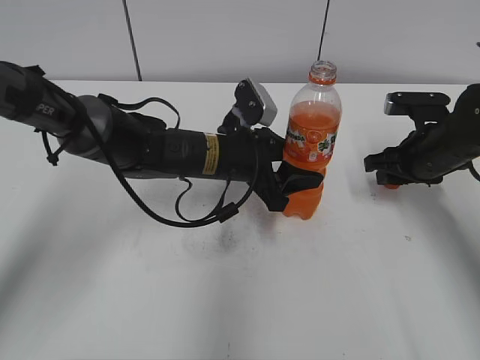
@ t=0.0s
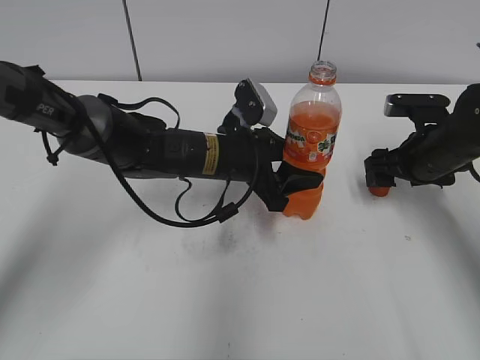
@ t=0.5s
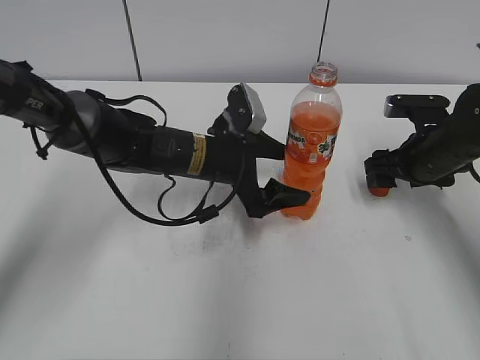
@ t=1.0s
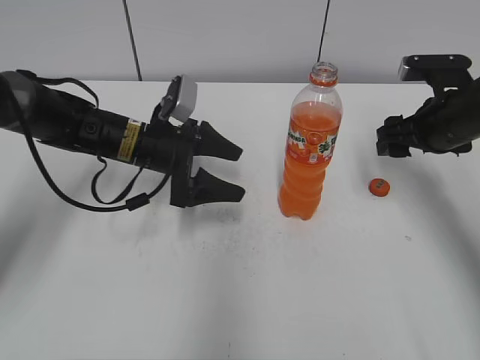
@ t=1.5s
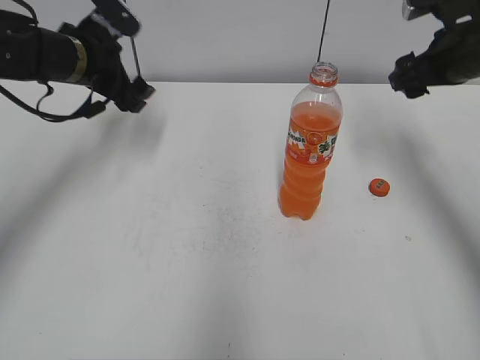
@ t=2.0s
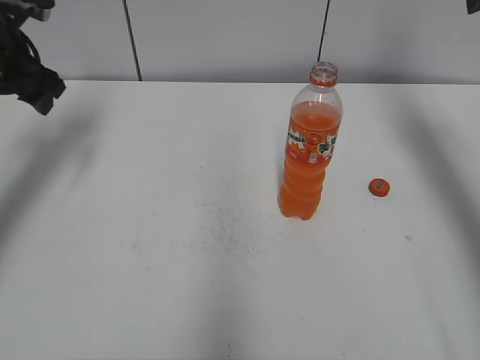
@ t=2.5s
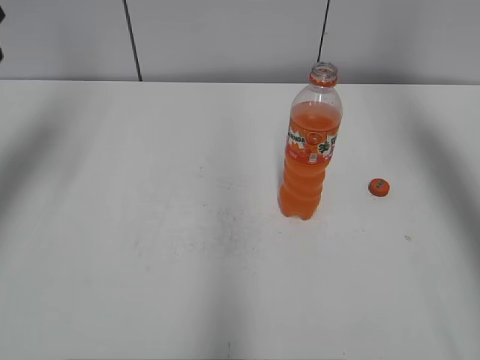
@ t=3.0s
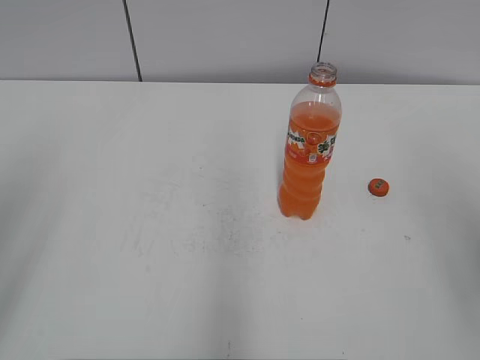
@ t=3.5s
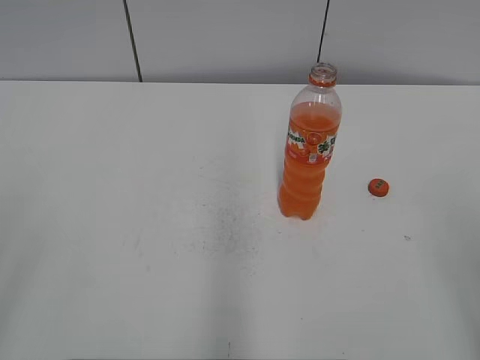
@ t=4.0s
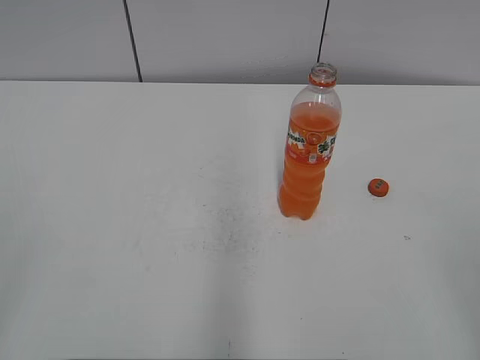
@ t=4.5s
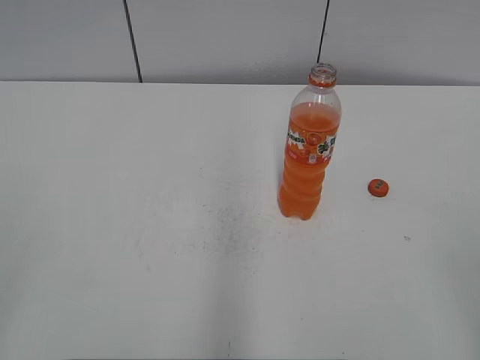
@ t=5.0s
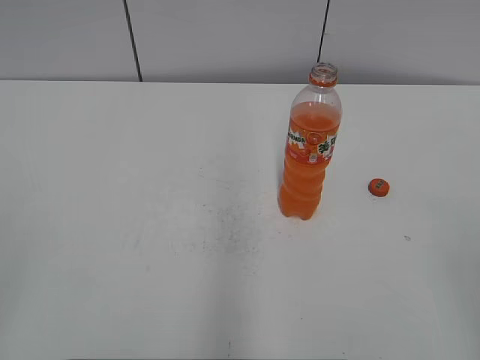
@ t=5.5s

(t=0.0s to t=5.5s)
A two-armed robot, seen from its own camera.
t=0.0s - t=2.0s: The right gripper travels upward by roughly 15 cm, and opens, while the left gripper travels to the left, upward and forward by roughly 20 cm, and opens.
t=2.0s - t=3.5s: The two grippers go some 30 cm backward.

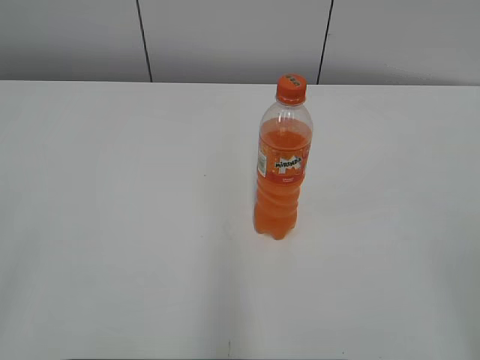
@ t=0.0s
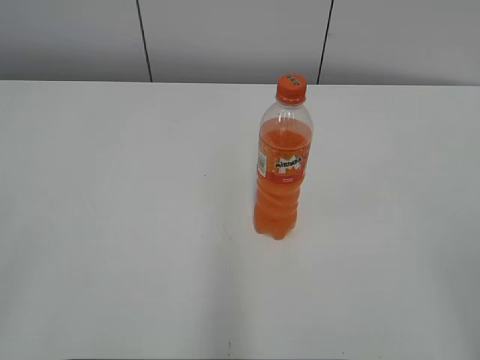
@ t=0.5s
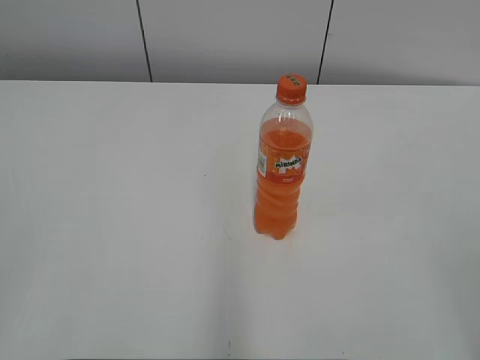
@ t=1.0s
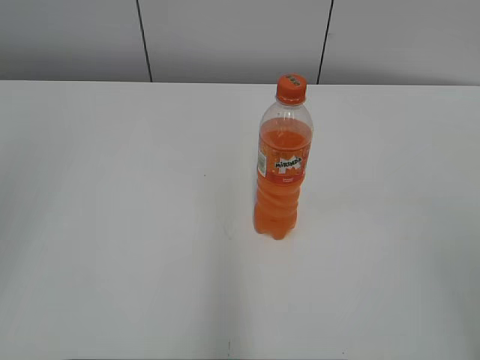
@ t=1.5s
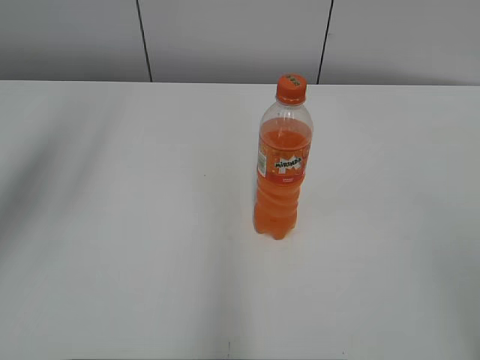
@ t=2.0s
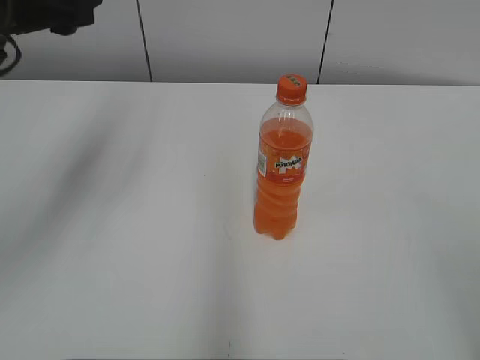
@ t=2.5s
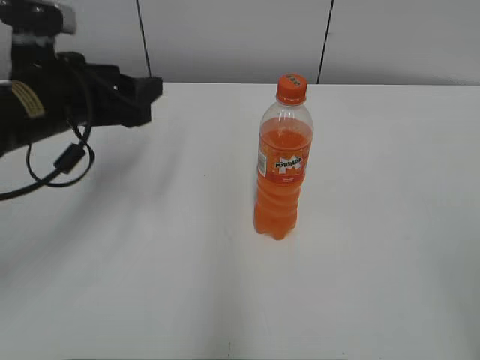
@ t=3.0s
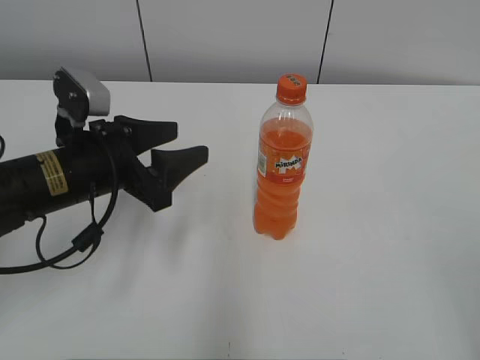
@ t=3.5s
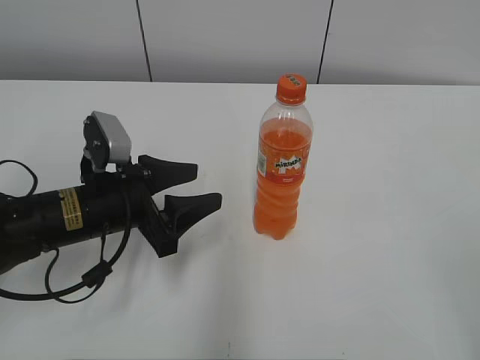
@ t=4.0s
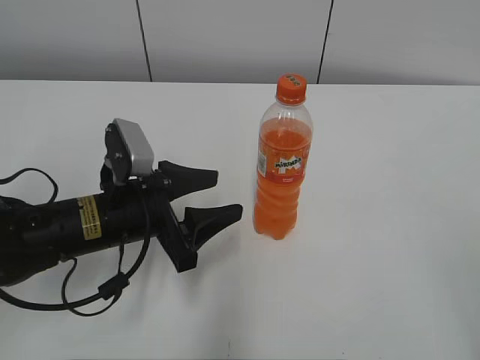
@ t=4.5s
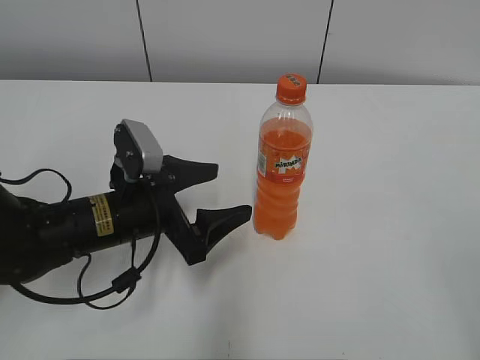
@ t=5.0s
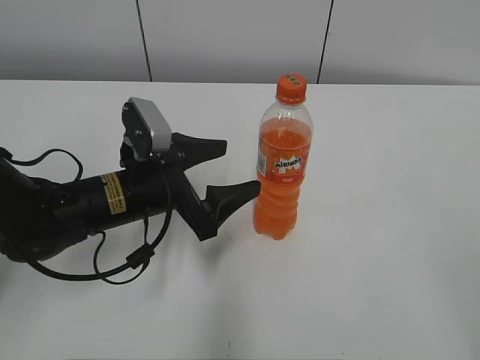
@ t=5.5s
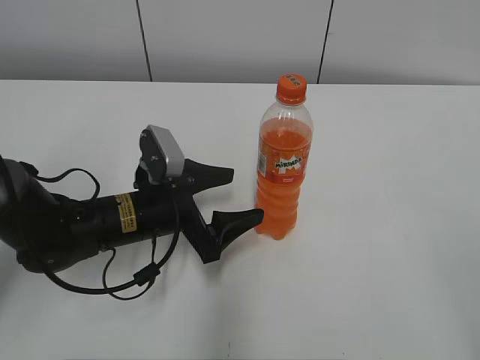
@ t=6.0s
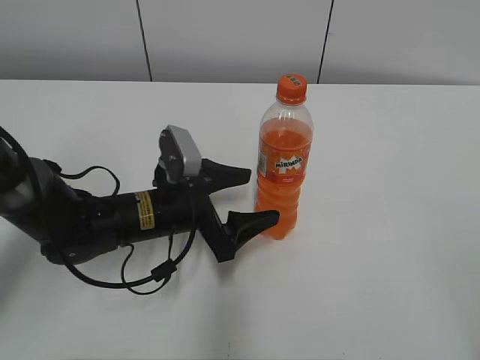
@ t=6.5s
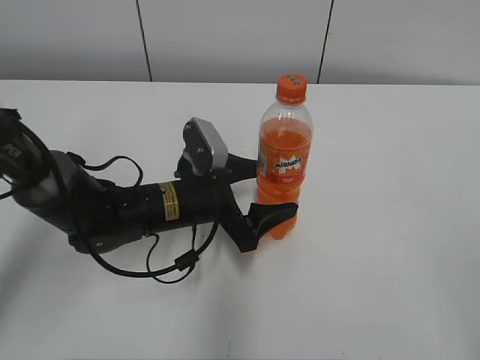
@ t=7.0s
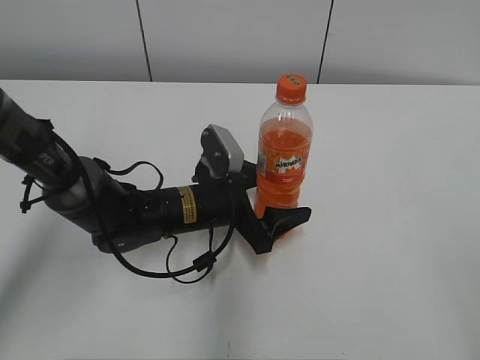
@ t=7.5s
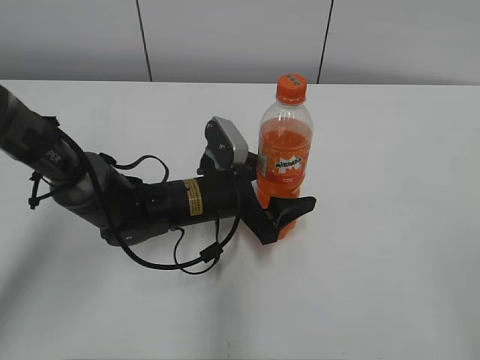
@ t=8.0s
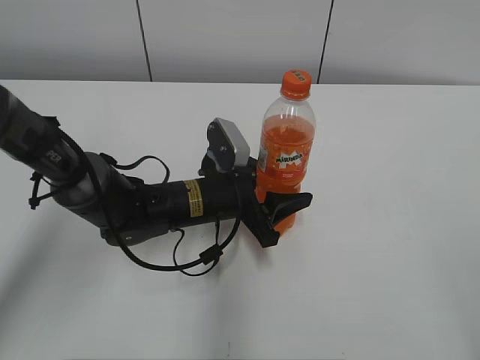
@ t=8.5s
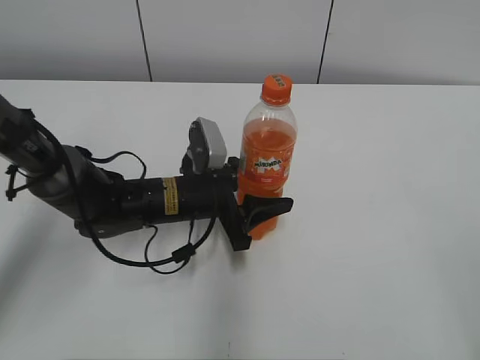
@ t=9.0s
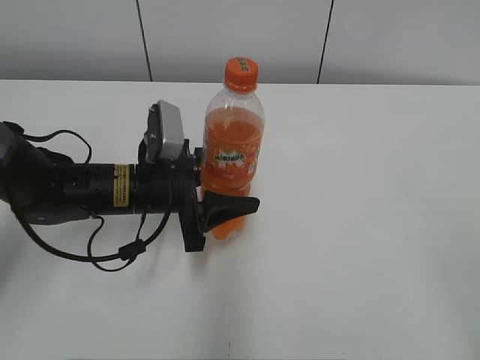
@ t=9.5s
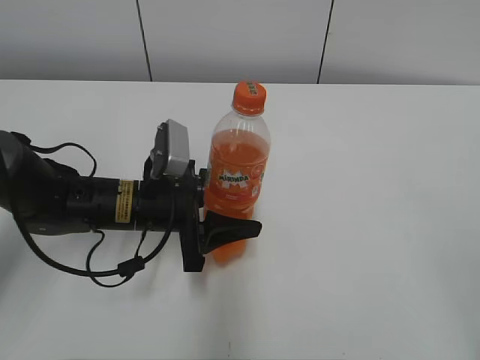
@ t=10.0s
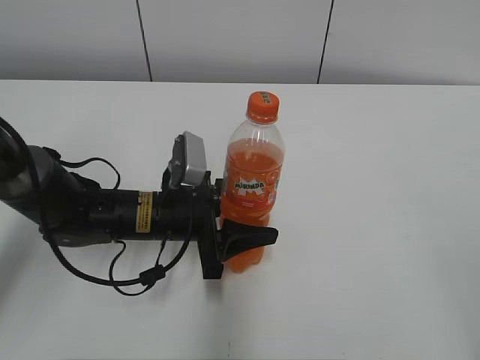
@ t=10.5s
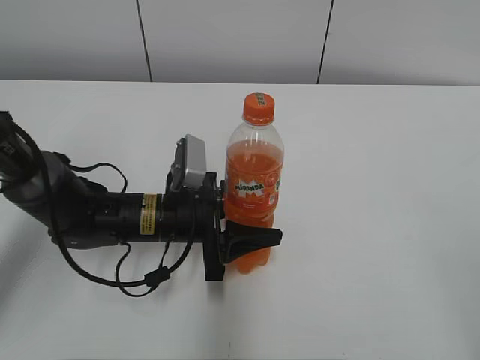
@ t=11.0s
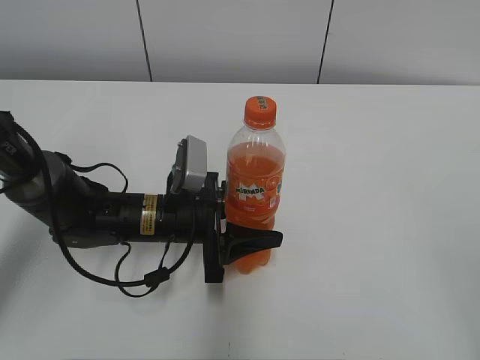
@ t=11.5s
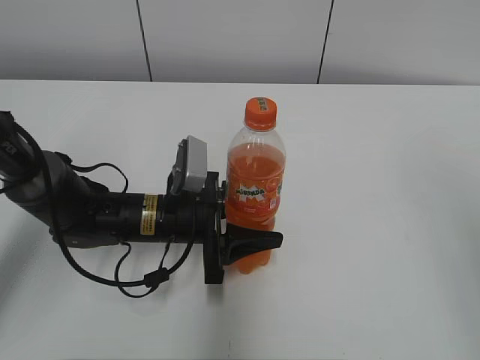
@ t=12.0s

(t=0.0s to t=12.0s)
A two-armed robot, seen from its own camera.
Step, t=0.0s - t=8.5s: Grab the Mirinda with the left hand.
Step, t=9.0s - t=11.0s: Move the Mirinda from right to left.
t=2.0s - t=4.0s: The left gripper is displaced downward and to the right by about 30 cm.
t=4.0s - t=6.0s: The left gripper moves about 5 cm, and opens its fingers.
t=6.0s - t=8.0s: The left gripper heads to the right, covering about 5 cm.
t=8.0s - t=10.0s: The left gripper shifts approximately 5 cm to the left, and closes its fingers.
t=10.0s - t=12.0s: The right gripper heads upward and forward, covering some 10 cm.

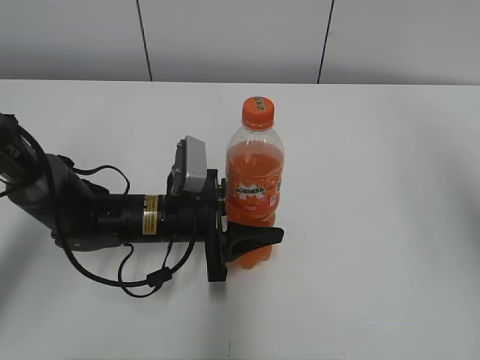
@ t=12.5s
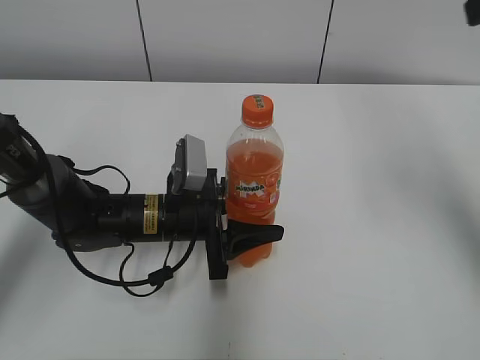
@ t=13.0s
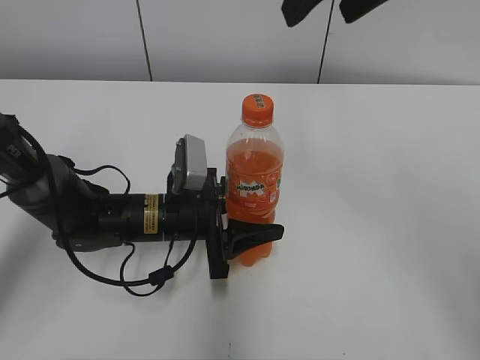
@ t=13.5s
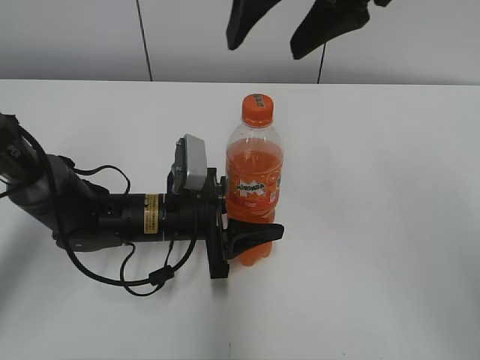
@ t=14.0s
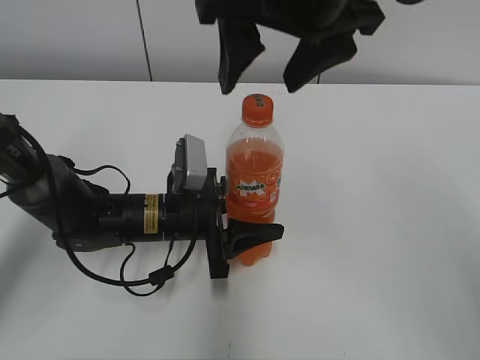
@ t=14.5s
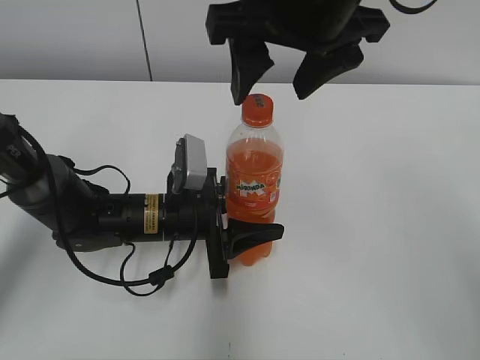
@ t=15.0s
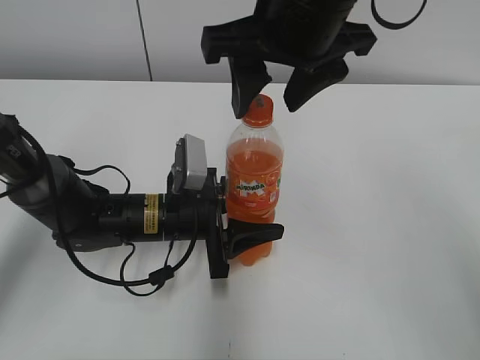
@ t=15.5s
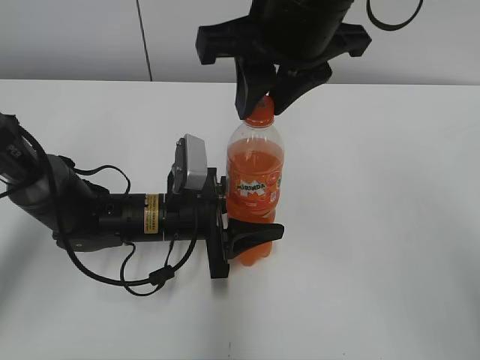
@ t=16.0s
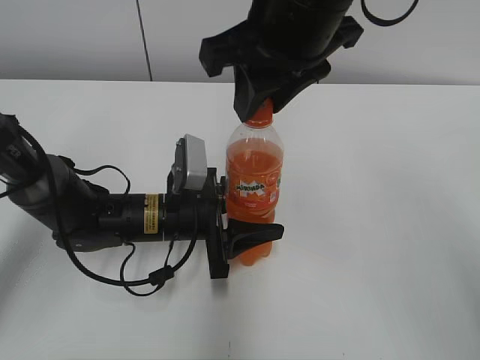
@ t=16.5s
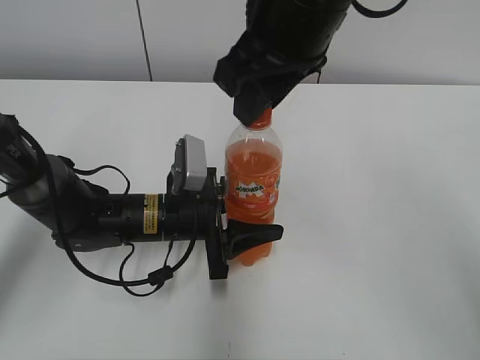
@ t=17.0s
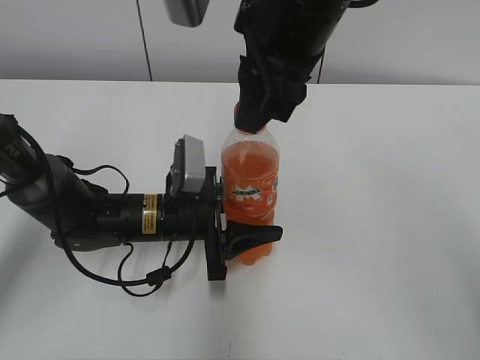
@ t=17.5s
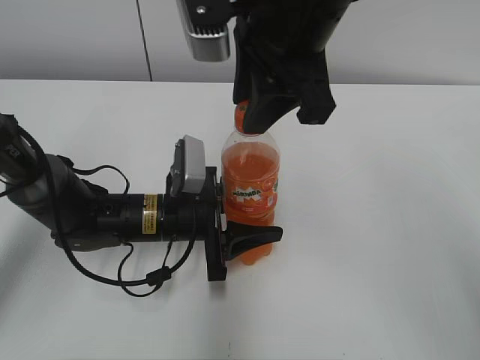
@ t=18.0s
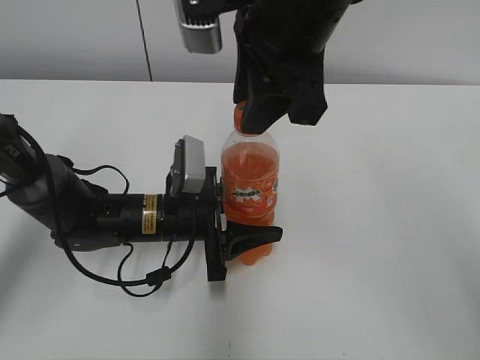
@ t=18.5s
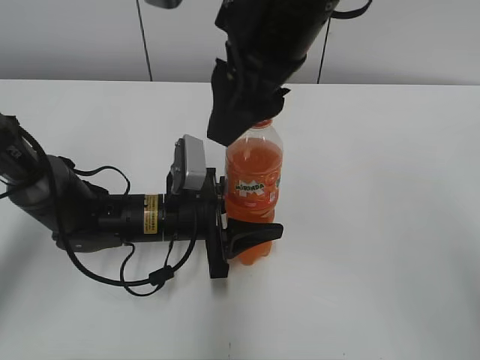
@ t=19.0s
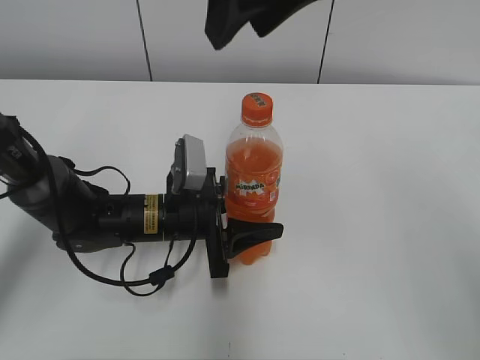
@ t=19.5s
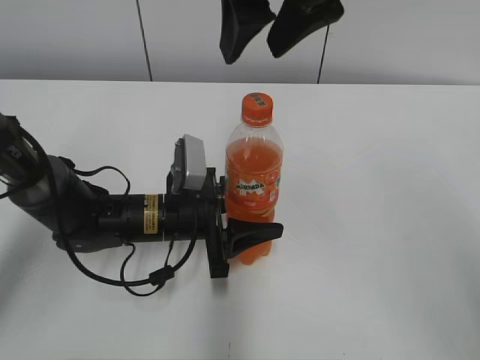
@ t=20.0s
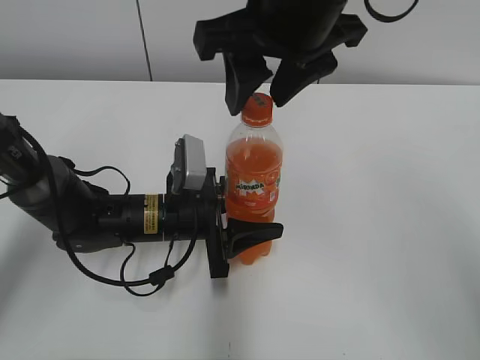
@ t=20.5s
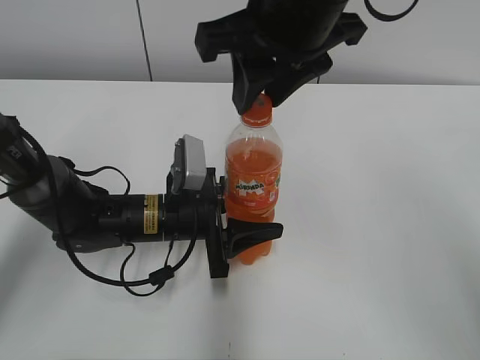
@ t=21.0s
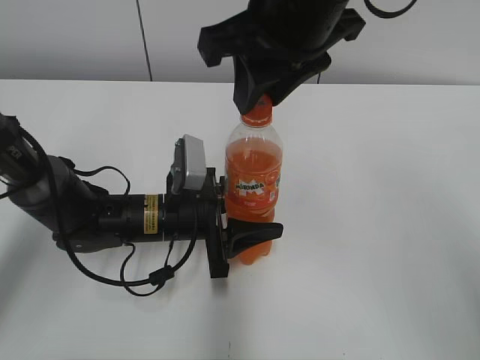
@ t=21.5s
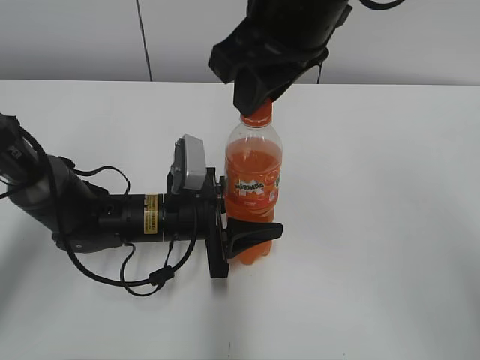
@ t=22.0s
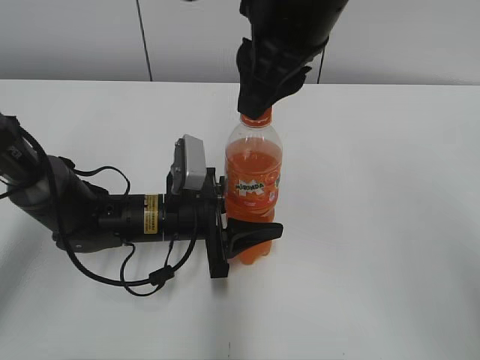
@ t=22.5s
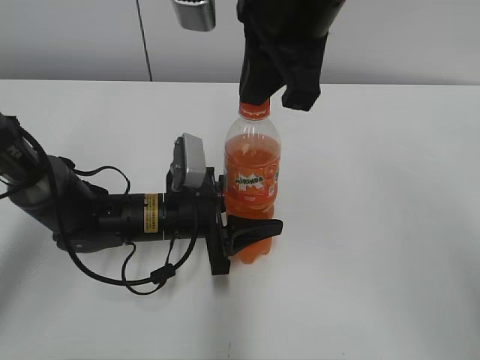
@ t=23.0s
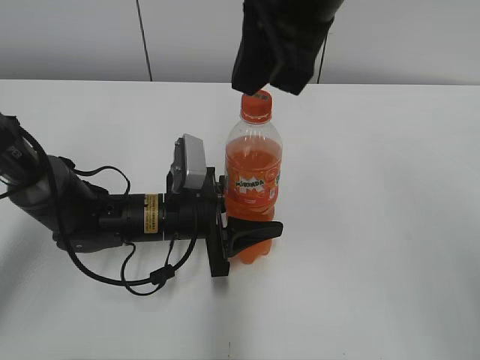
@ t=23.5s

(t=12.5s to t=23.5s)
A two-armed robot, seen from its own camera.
t=12.5s - t=14.5s: The right gripper goes about 25 cm to the left and forward.
t=14.5s - t=16.0s: The right gripper closes.
t=18.0s - t=20.0s: The right gripper opens.
t=20.0s - t=21.5s: The right gripper closes its fingers.
